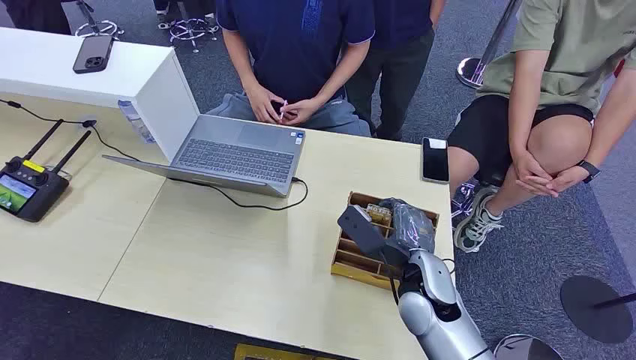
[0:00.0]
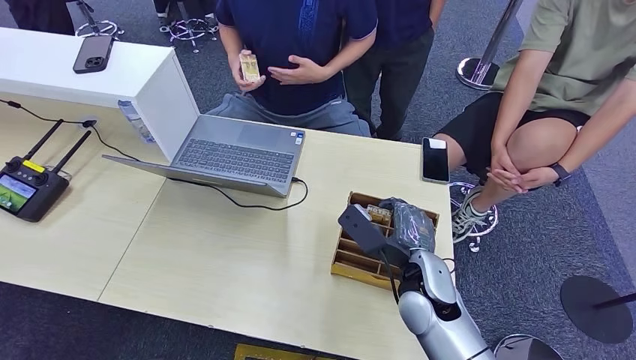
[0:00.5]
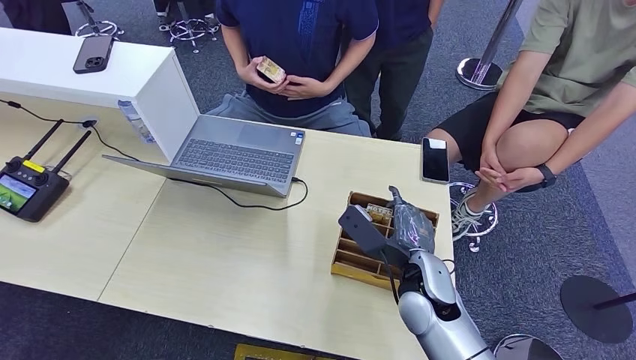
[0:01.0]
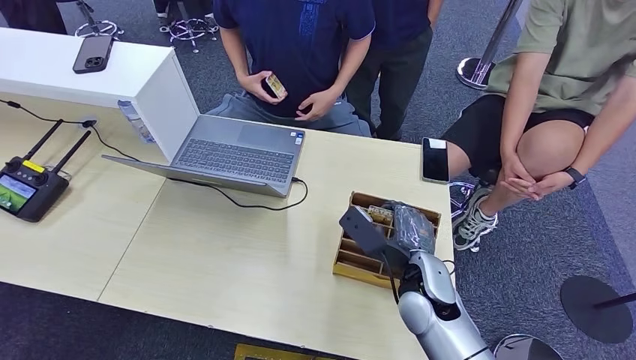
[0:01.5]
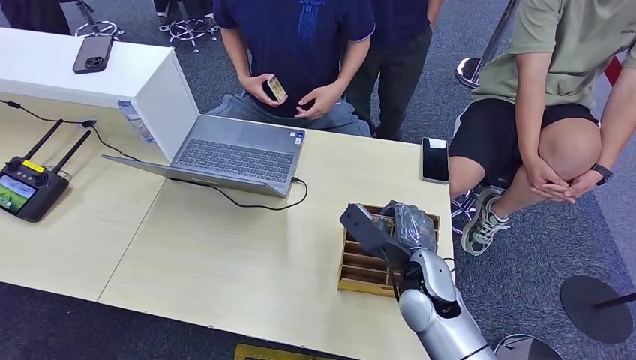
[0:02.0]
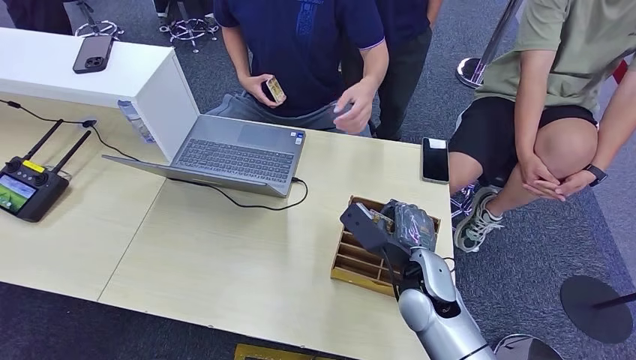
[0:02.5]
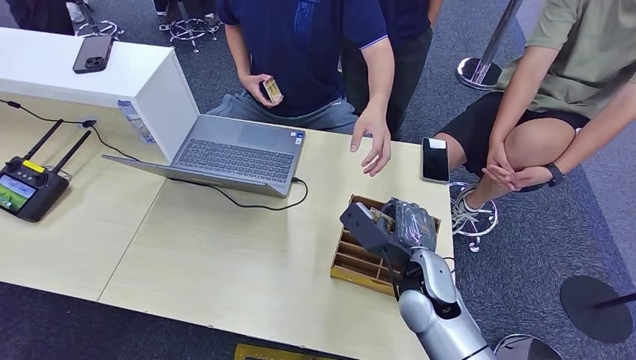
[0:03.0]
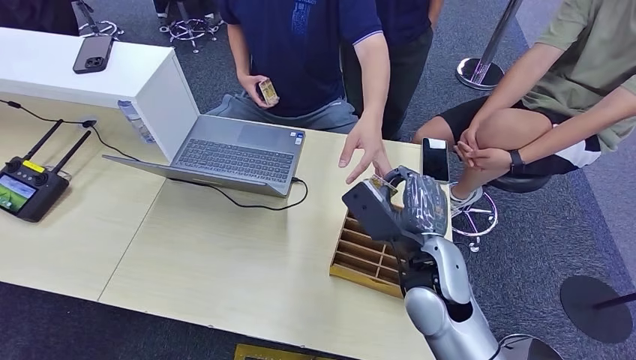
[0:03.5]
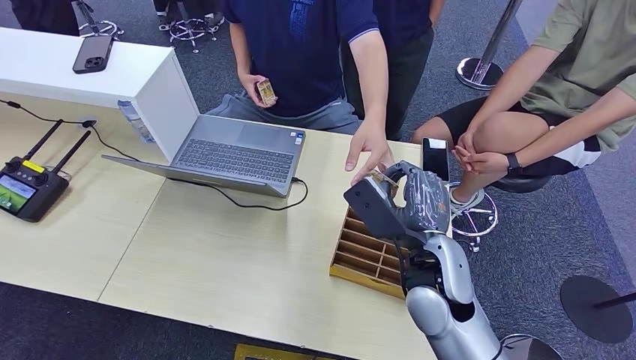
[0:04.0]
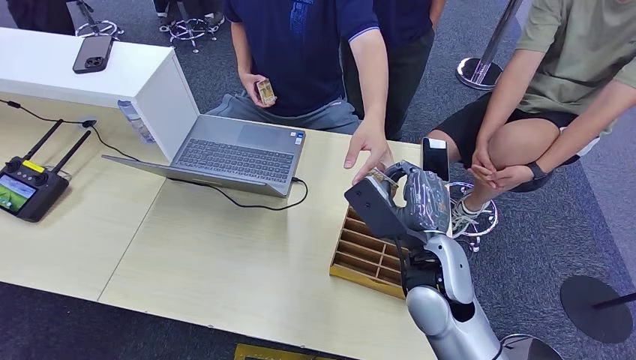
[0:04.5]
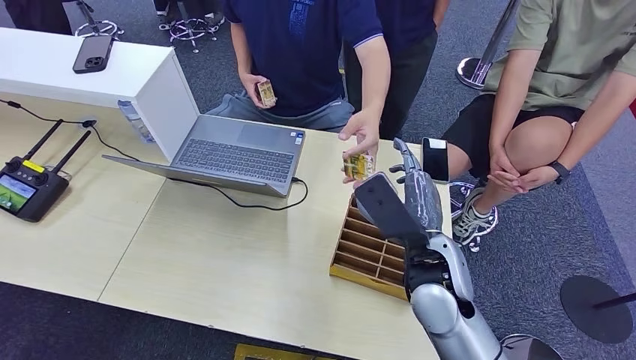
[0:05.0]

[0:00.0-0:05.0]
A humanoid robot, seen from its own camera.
Step, 0:00.0 to 0:03.5: Pick up the key card from the card box.
Step, 0:04.0 to 0:05.0: Hand the key card to the target.
0:02.5 to 0:05.0: The right hand heads upward, covering roughly 10 cm.

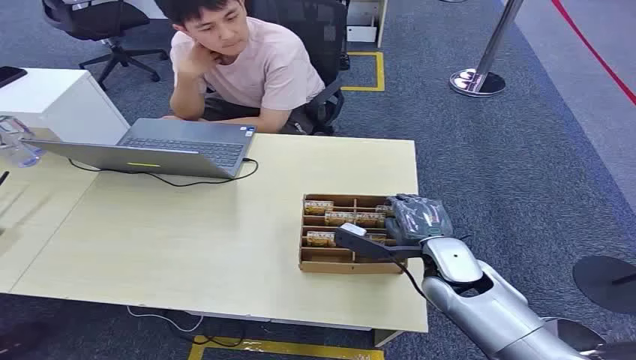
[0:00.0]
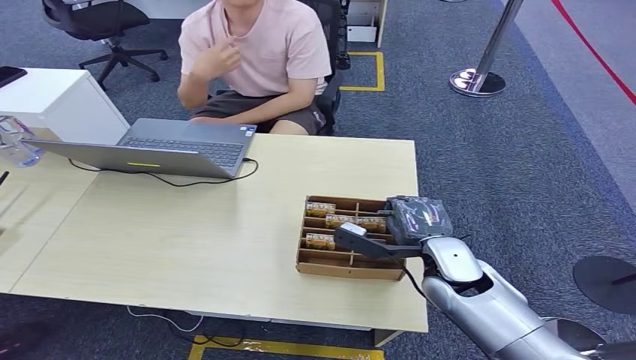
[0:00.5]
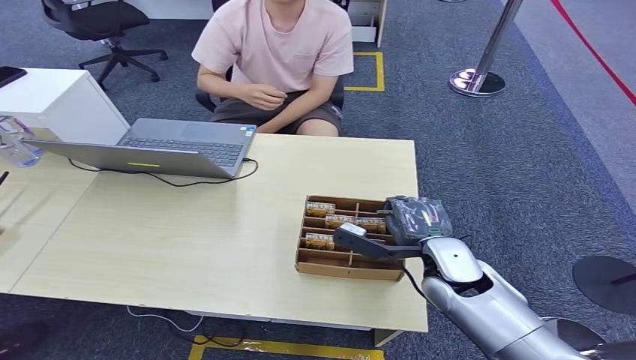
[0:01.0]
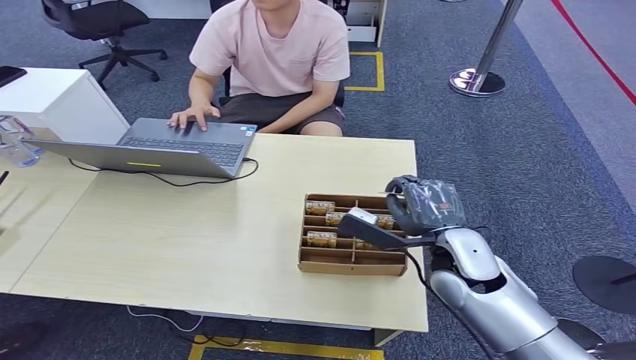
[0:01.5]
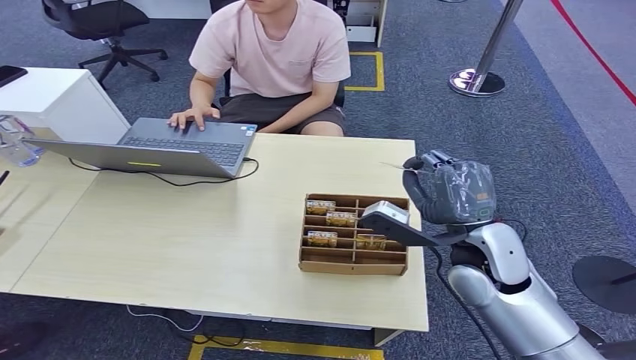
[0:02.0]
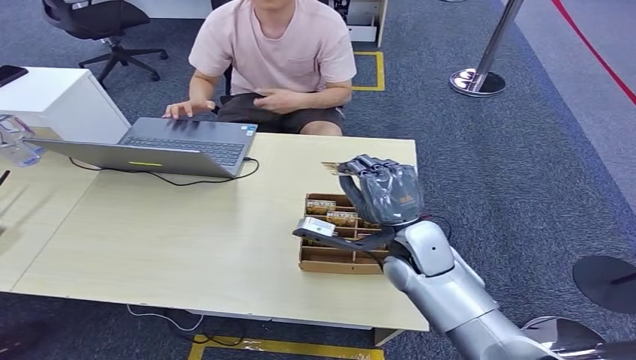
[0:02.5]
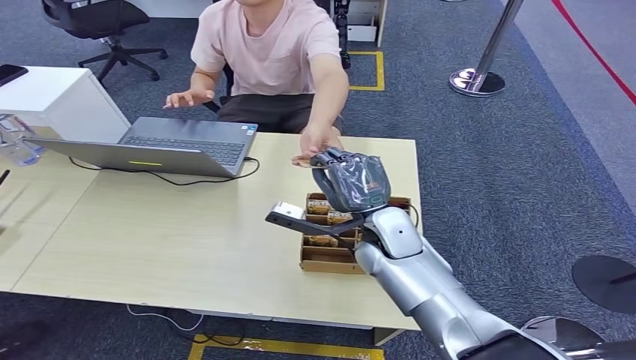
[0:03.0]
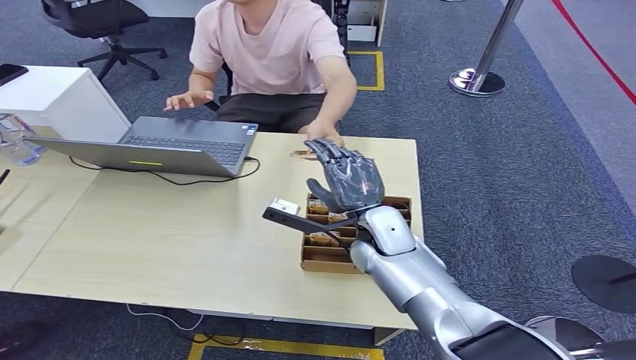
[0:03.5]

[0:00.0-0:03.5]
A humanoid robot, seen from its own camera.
Step, 0:00.0 to 0:01.5: Pick up the key card from the card box.
Step, 0:02.0 to 0:03.5: Hand the key card to the target.
0:02.0 to 0:03.5: The right hand moves to the left, forward and downward, about 15 cm.
